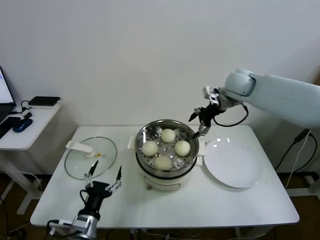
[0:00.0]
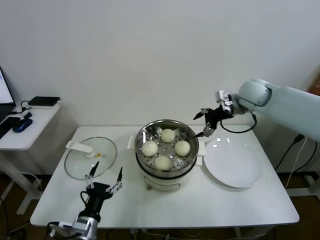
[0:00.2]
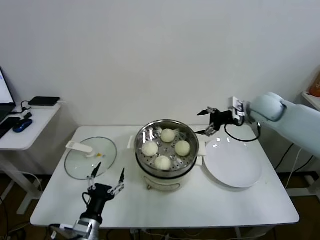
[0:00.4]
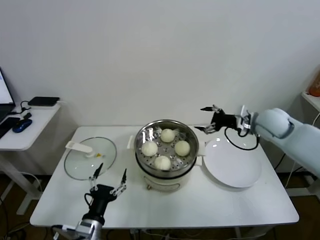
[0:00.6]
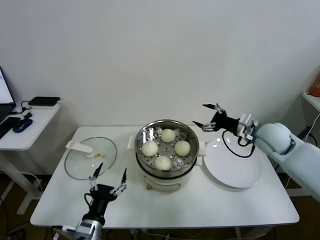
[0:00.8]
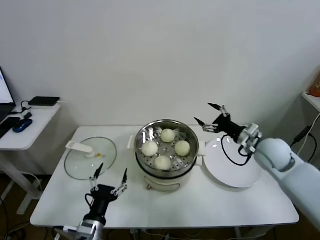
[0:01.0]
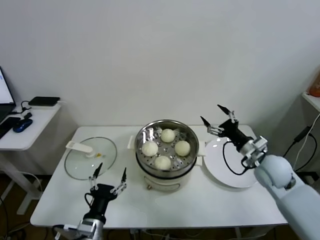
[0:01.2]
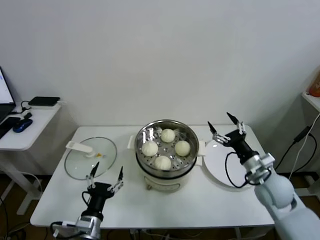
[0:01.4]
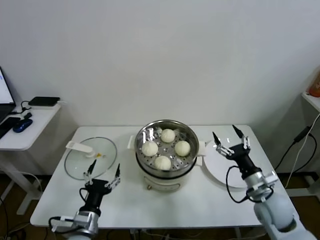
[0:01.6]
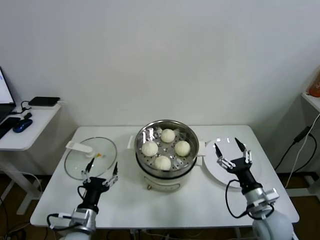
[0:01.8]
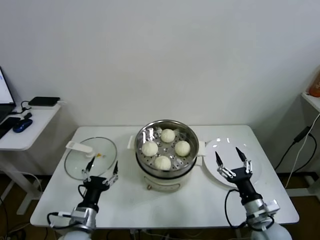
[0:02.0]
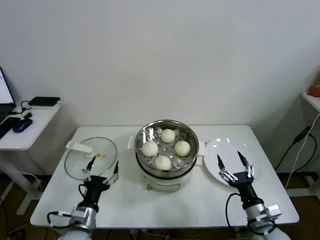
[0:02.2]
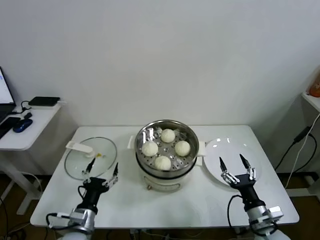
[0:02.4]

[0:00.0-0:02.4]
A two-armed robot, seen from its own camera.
Task of the whole recording: take steamed baozi put them in steamer.
0:00.0 to 0:01.2: The right gripper moves backward, downward and to the right, some 30 cm.
0:01.2 to 0:02.4: The right gripper is displaced backward and downward by about 20 cm.
